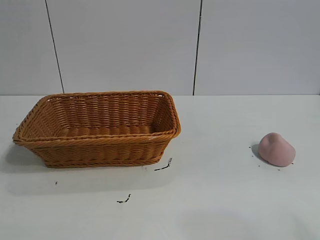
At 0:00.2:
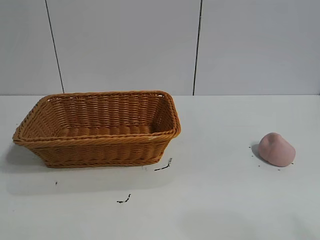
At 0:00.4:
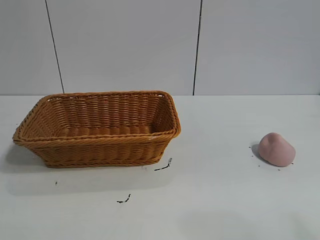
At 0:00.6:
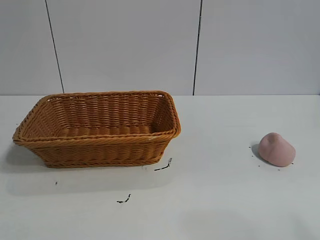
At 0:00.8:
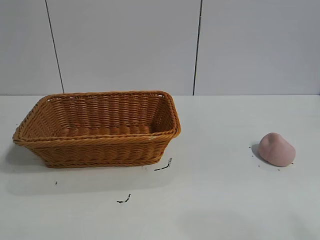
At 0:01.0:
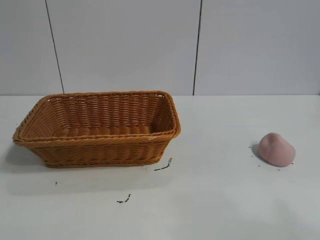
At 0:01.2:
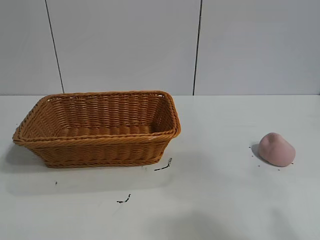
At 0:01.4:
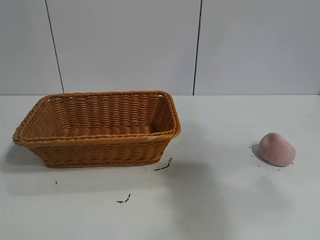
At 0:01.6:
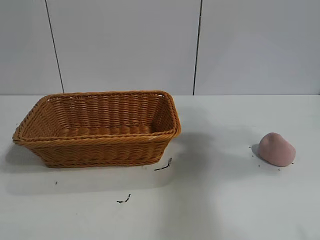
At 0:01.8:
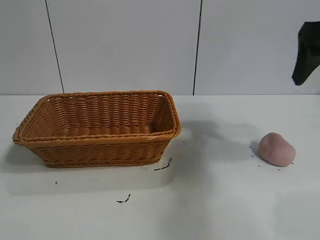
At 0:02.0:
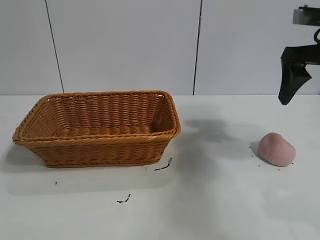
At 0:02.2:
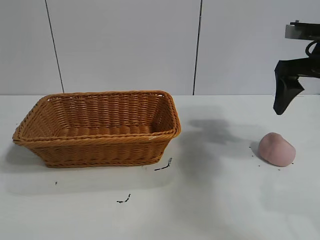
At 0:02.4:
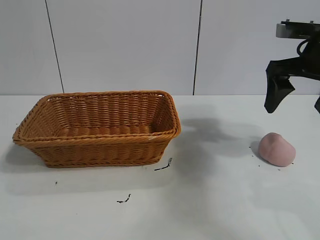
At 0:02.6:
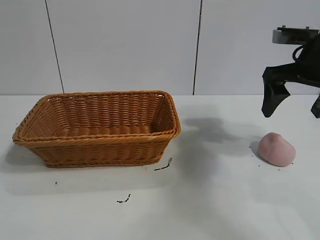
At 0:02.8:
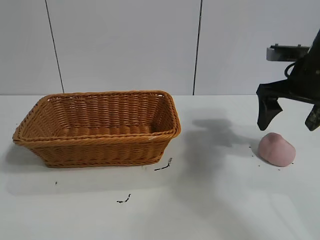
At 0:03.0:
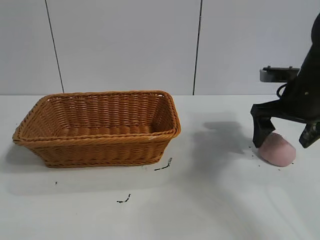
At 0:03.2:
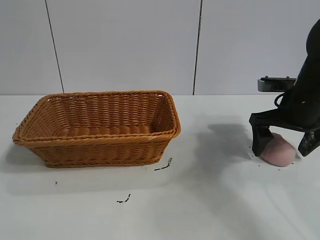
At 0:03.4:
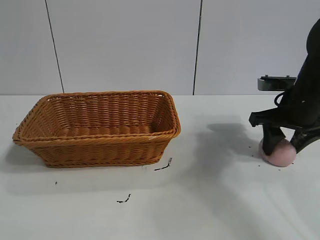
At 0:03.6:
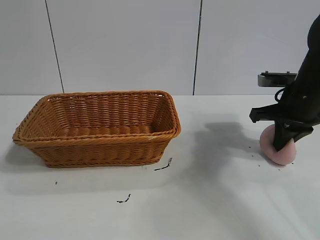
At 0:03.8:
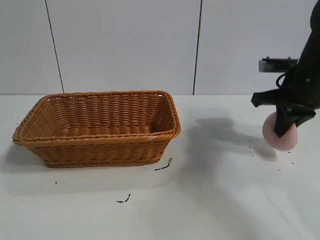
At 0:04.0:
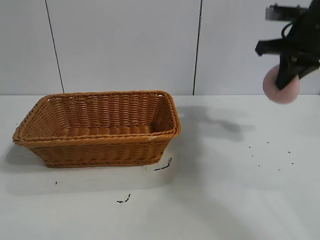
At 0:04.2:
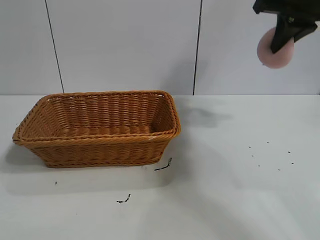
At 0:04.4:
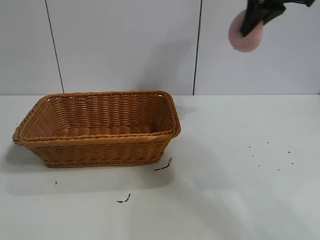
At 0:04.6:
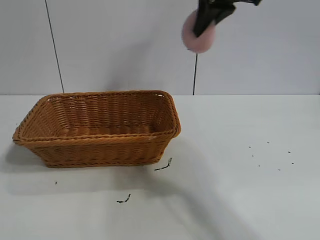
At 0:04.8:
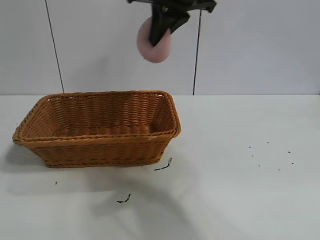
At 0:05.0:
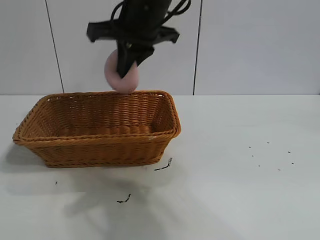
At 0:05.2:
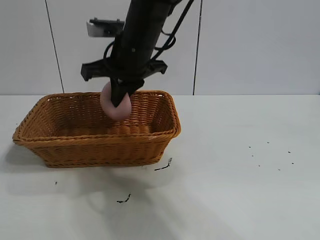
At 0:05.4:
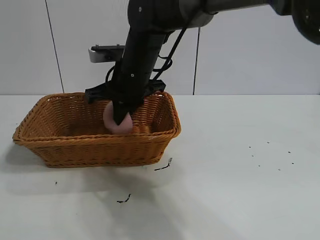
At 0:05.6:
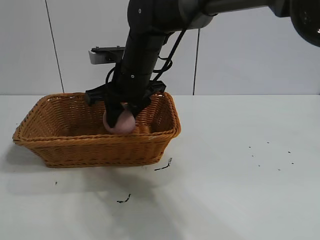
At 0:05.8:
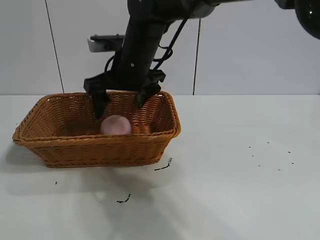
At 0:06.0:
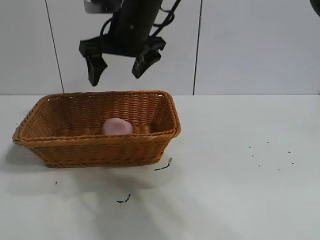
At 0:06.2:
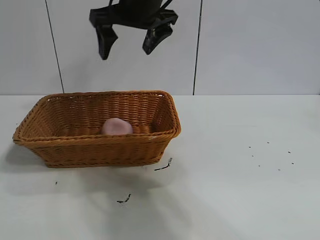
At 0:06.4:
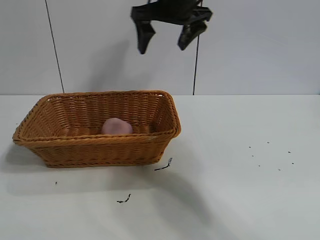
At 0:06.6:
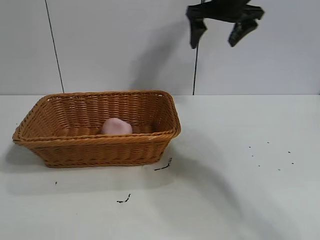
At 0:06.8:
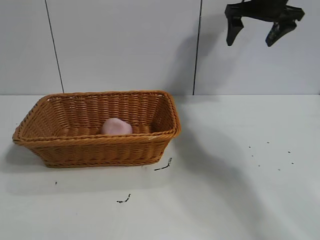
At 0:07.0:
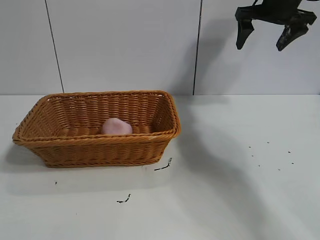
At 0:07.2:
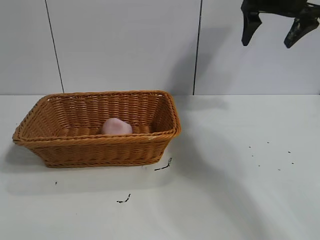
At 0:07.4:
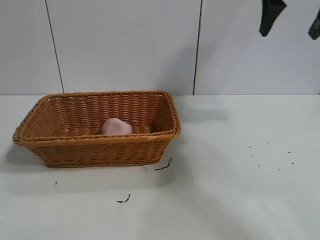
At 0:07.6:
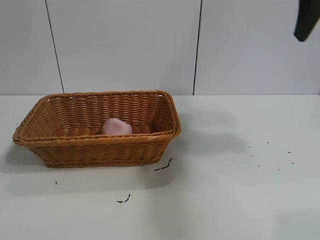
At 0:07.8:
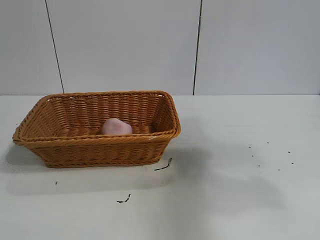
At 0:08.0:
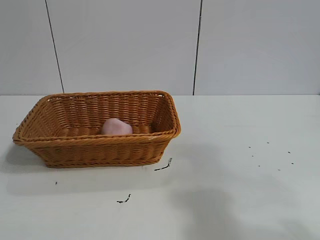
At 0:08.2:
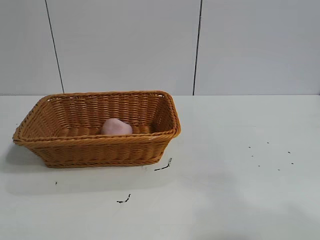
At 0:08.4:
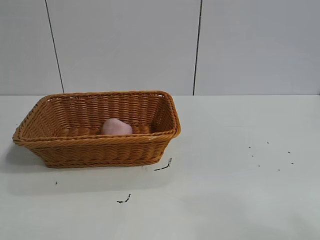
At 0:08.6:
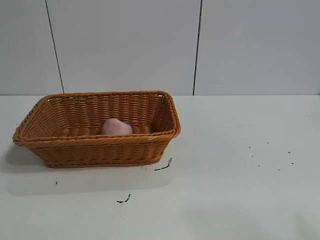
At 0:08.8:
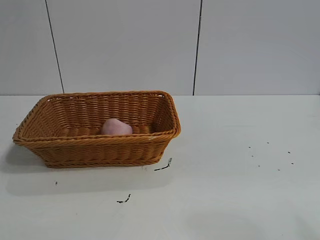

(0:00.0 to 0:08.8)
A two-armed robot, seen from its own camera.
Task of the whole recording: pick up the peach and put it into the basket.
Step, 0:01.0 - 0:03.6: Grasp the peach with right gripper.
Step, 0:03.8 - 0:06.0: Place the peach in the basket with right gripper.
